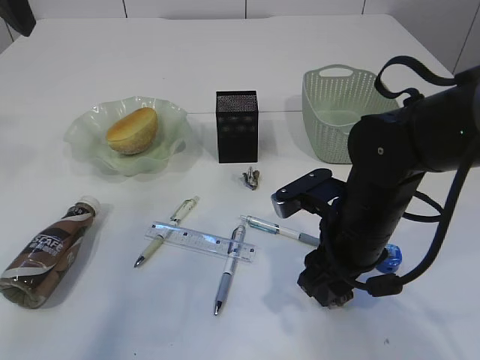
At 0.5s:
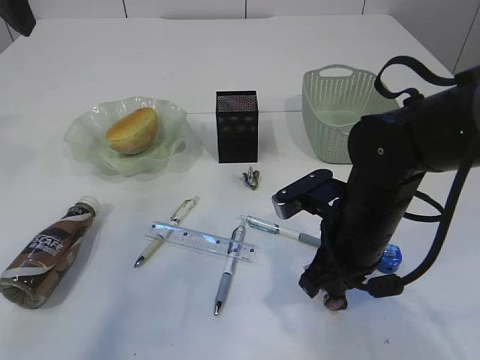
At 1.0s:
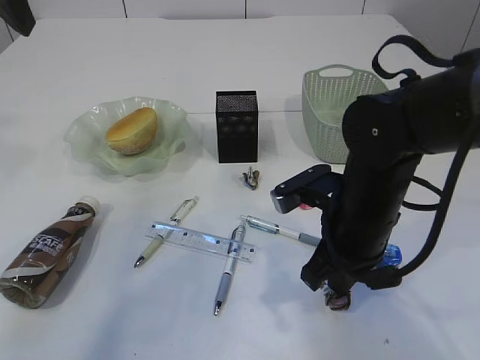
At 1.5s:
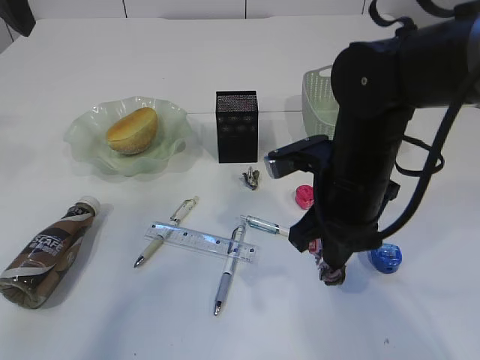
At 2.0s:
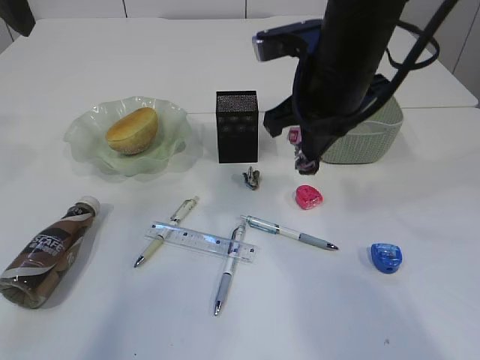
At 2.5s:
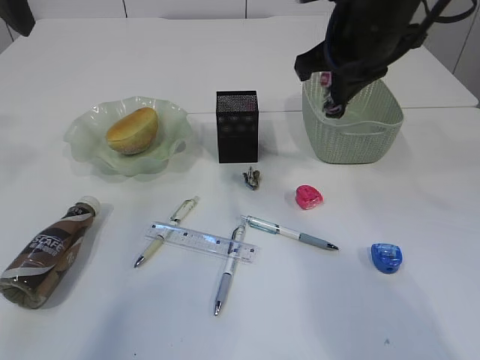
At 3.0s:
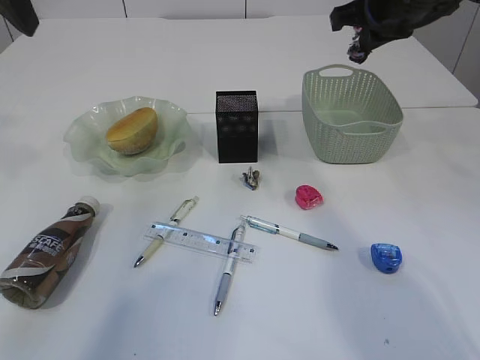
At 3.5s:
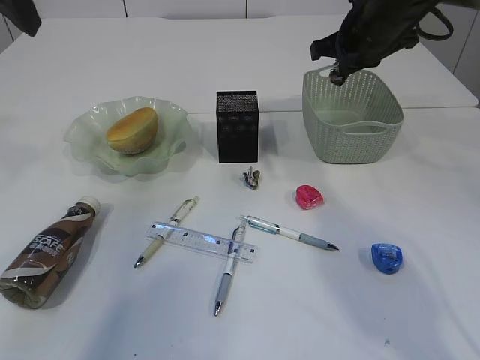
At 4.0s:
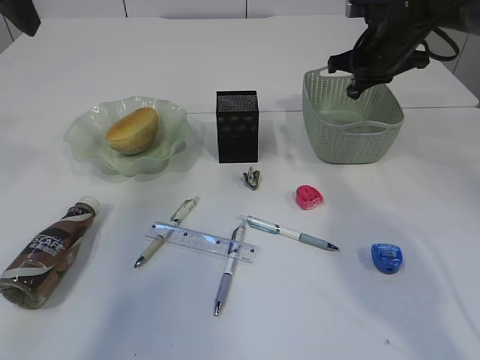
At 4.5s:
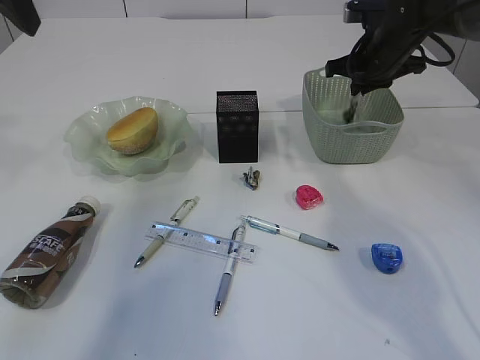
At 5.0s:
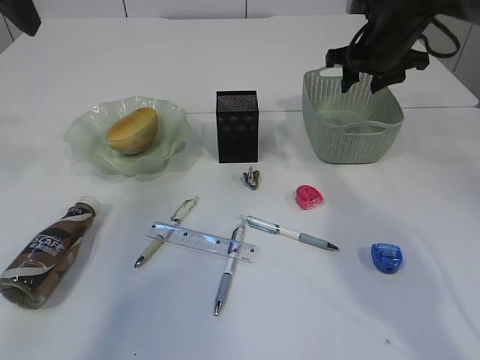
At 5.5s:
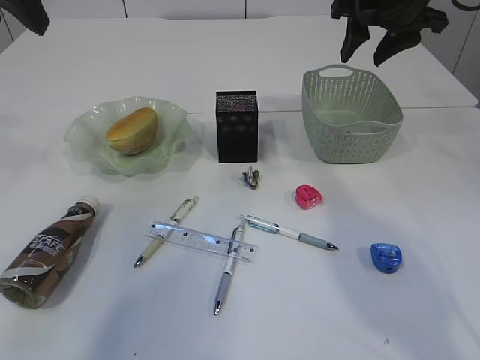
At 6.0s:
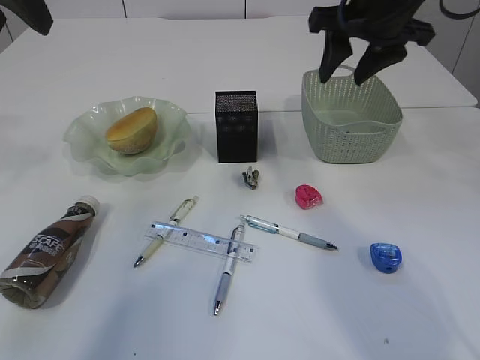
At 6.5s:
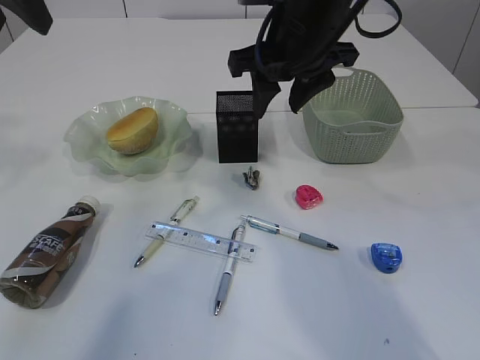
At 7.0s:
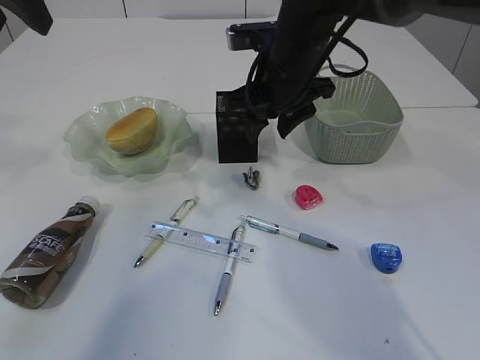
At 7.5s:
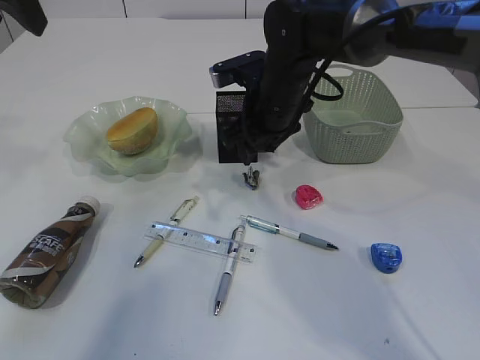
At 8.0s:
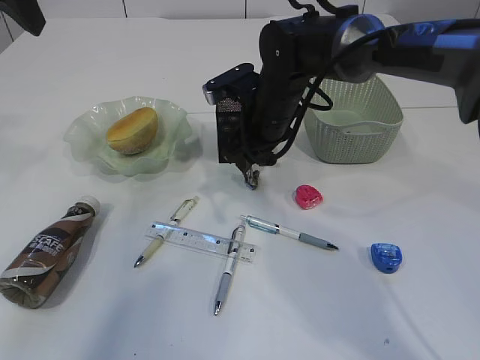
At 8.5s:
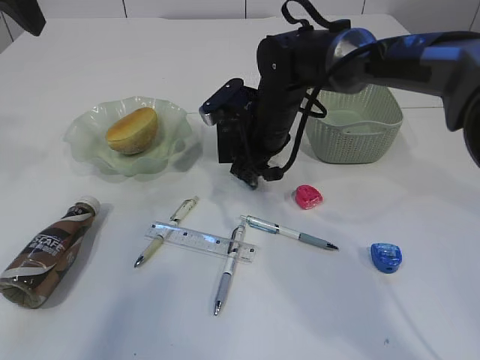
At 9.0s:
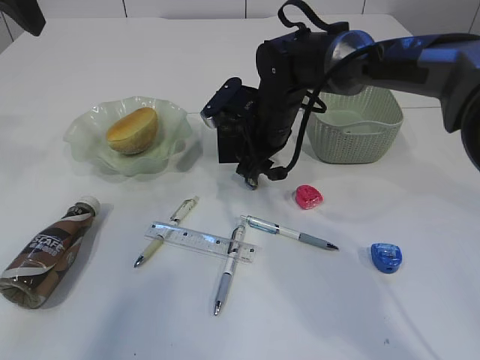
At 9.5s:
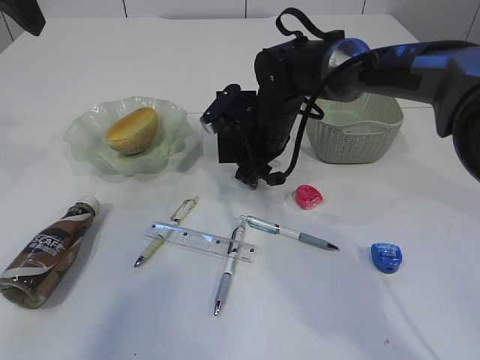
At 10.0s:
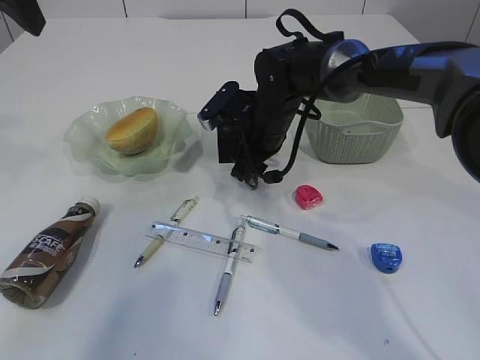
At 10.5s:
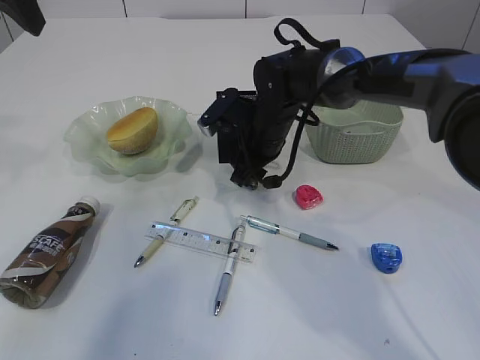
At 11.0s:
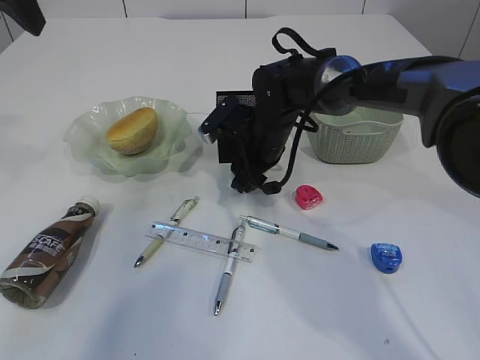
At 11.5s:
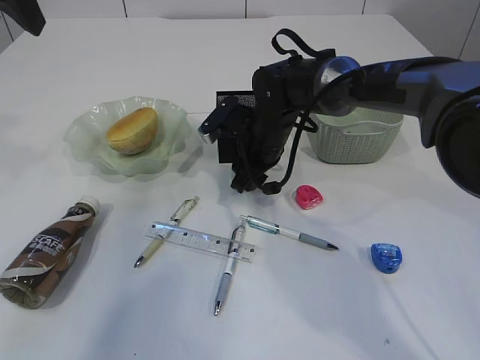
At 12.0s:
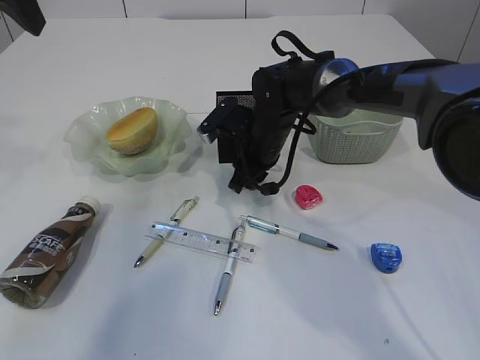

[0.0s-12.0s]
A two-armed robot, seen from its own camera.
Step, 2.0s to 5.5s: Place the waste paper in the basket.
0.0s to 2.0s: The right gripper travels upward and forward by about 15 cm, and closes its fingers.
2.0s to 4.0s: The right gripper travels forward and to the right by about 20 cm.
4.0s to 6.0s: The right gripper goes some 15 cm upward and backward, and opens up.
6.0s to 8.0s: The right gripper shifts some 20 cm downward and to the left.
8.0s to 10.0s: There are only small adjustments of the grippers.
10.0s to 12.0s: The right gripper closes.

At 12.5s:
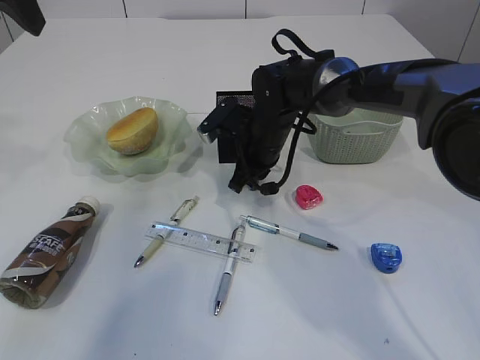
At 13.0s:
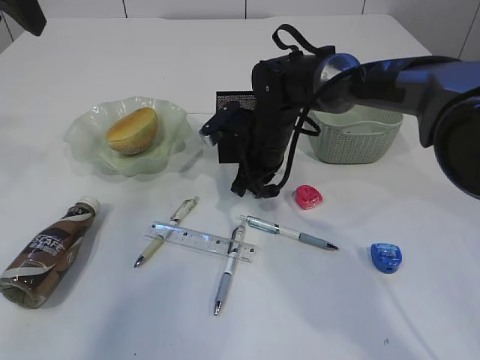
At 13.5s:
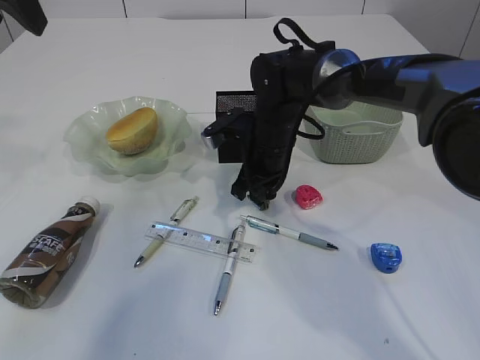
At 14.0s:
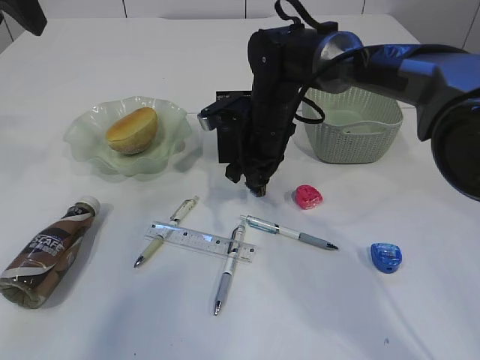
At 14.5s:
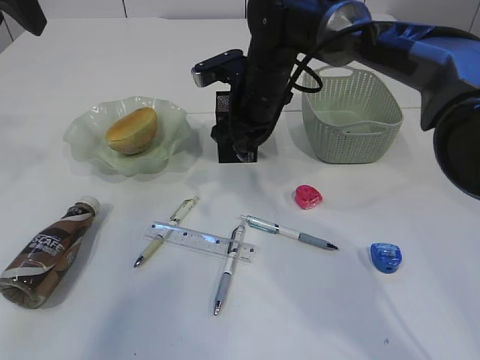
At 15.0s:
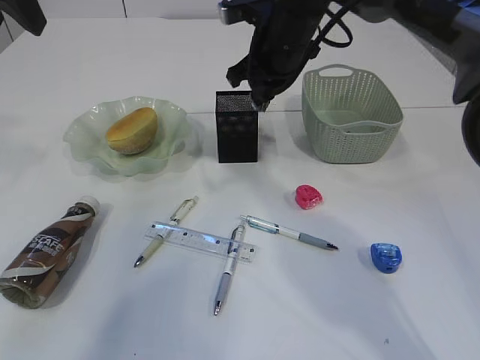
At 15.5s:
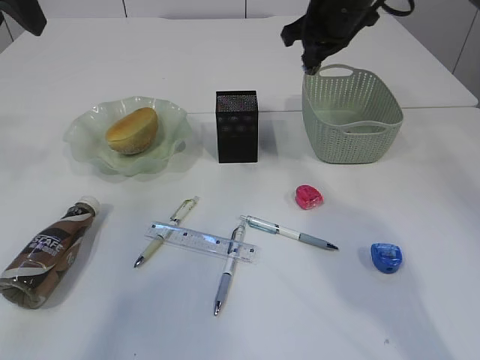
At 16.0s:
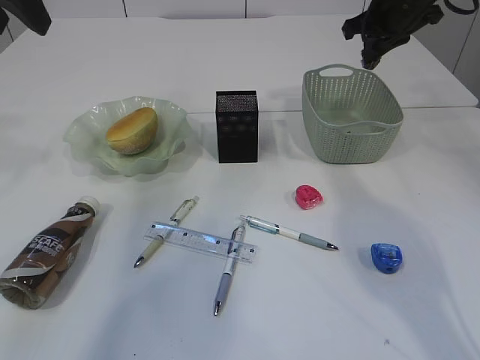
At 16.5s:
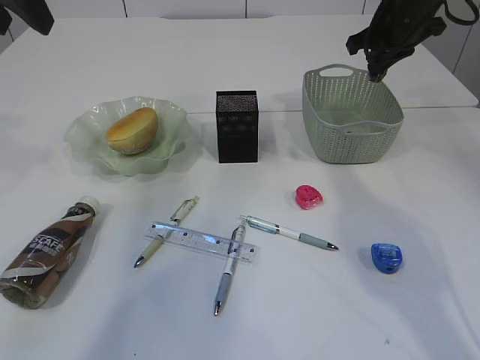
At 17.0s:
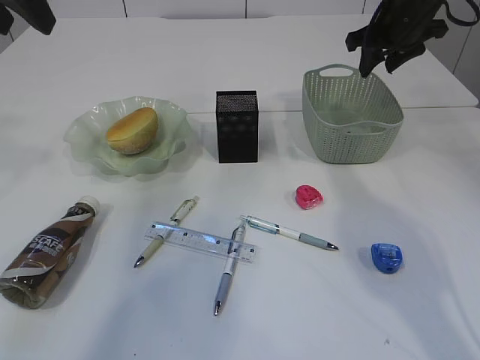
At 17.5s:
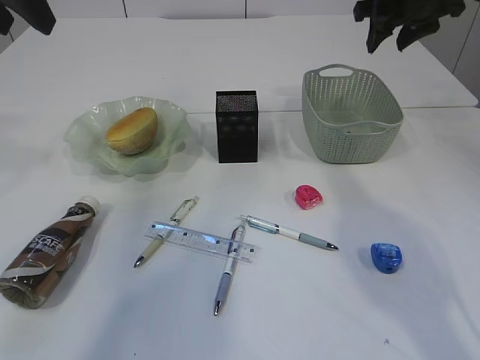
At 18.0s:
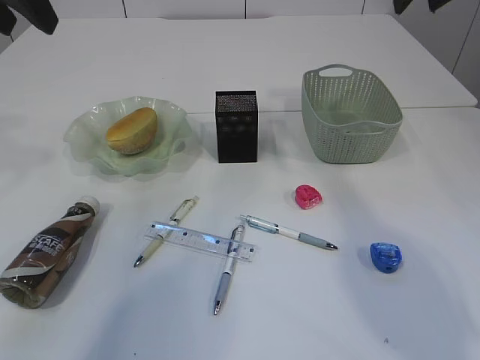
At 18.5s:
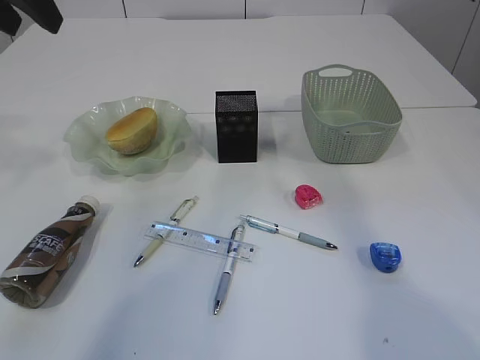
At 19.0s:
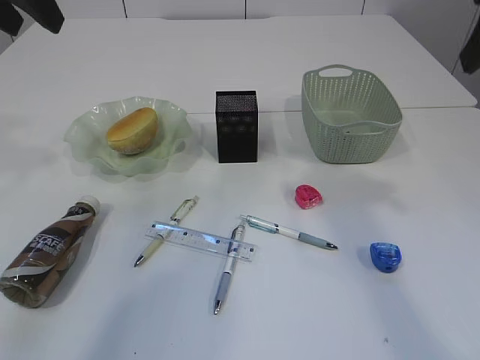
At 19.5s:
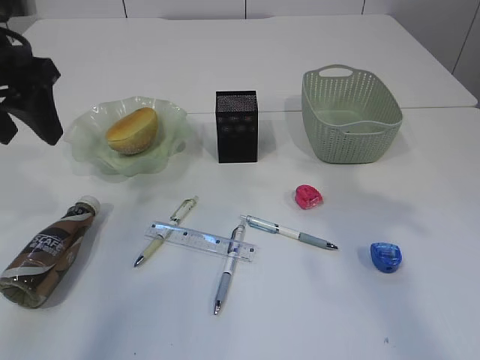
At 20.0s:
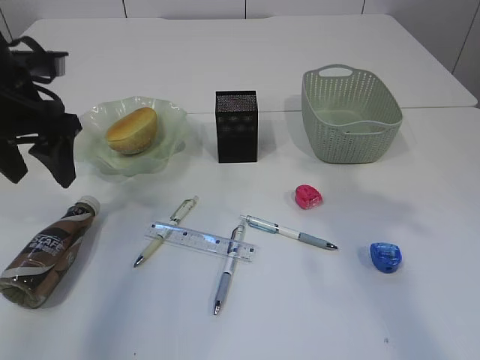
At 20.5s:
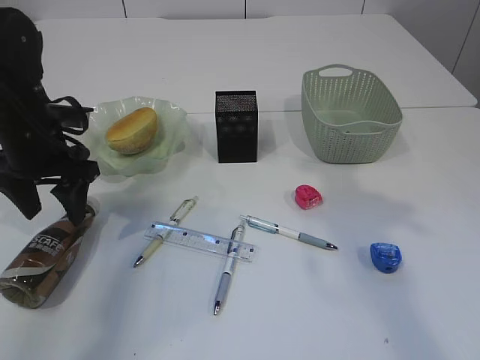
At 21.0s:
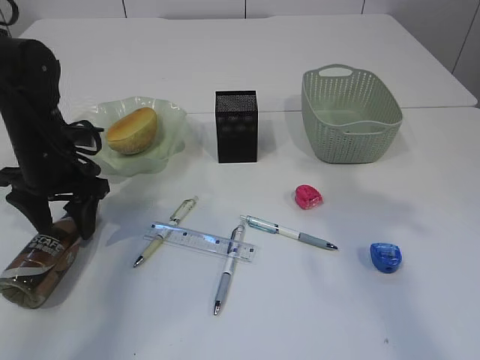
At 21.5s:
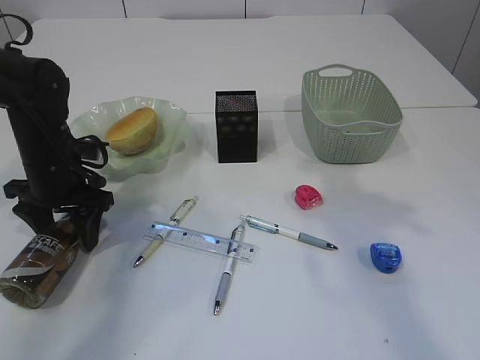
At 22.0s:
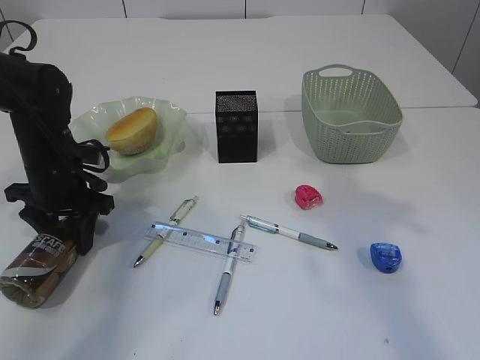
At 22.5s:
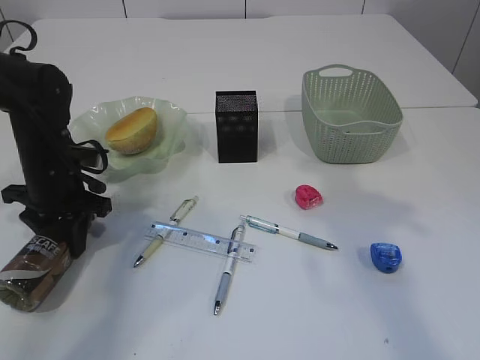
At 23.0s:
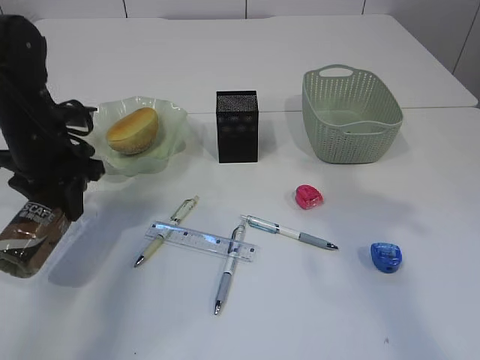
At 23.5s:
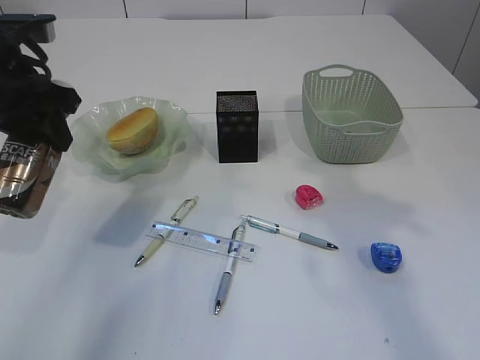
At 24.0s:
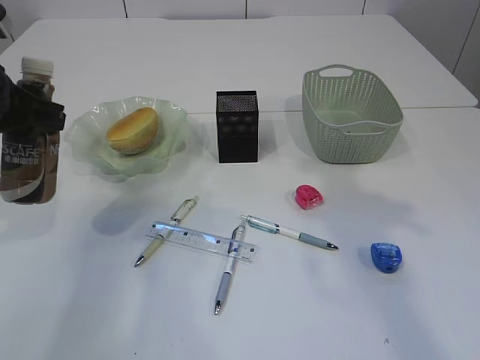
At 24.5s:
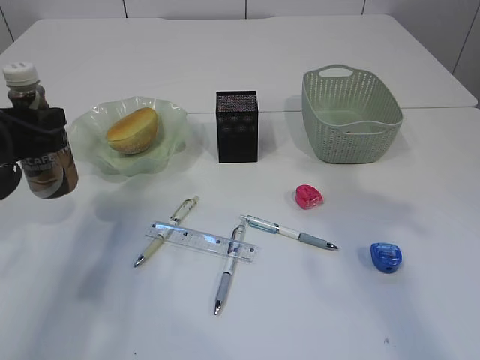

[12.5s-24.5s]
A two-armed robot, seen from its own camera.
Step, 12.5s to 14.5s: Pick up the waste paper.
Step, 15.0s to 16.5s: Place the waste paper in the basket.
Step, 17.0s to 23.0s: Pick up the bottle with the left arm.
12.5s to 14.5s: The right gripper moves upward, about 10 cm.
14.5s to 16.5s: The right gripper is displaced to the right by about 20 cm.
16.5s to 18.5s: The right gripper goes roughly 20 cm backward and upward, and opens its fingers.
18.5s to 20.5s: The left gripper heads downward, covering approximately 20 cm.
20.5s to 22.5s: The left gripper shifts roughly 5 cm downward, and closes its fingers.
22.5s to 24.5s: The left gripper heads backward and upward, covering approximately 15 cm.

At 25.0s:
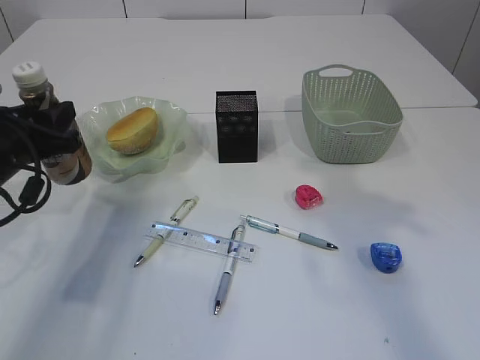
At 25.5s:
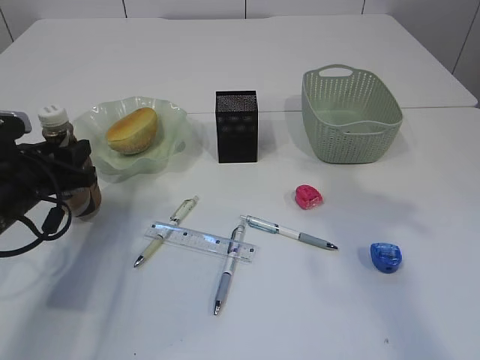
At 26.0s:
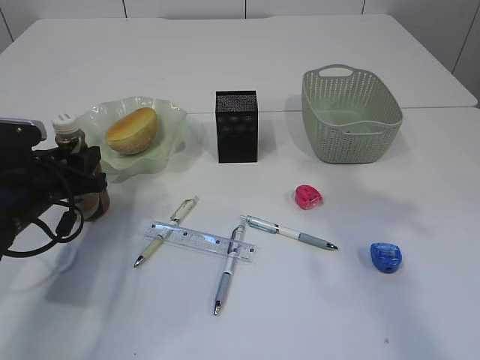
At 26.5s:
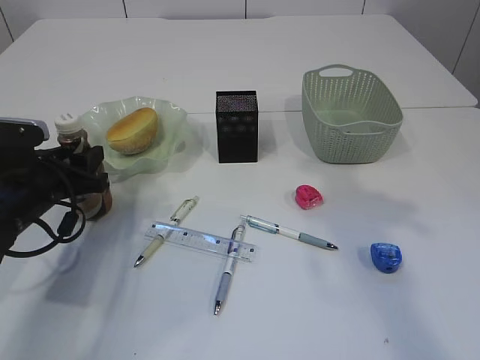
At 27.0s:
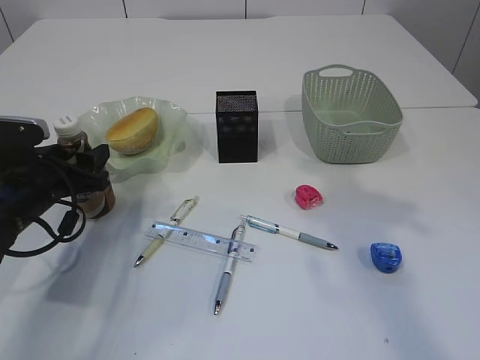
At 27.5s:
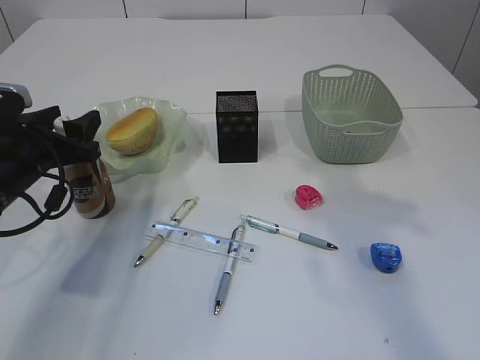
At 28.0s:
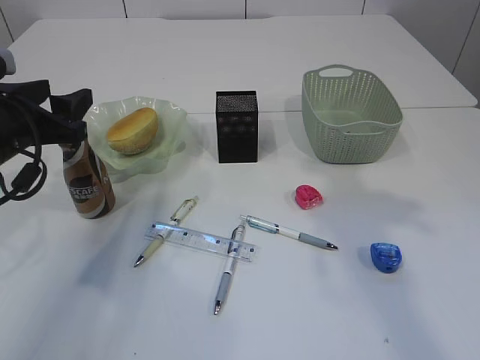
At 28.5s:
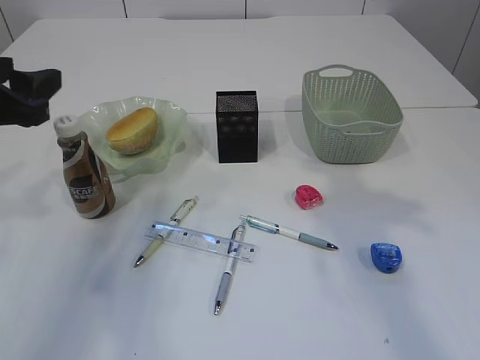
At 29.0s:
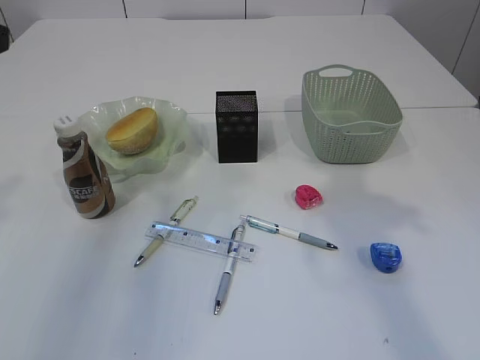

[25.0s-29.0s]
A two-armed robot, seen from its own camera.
Step, 25.0s to 28.0s: Place the bottle.
25.0s to 27.0s: The left gripper is displaced downward by approximately 5 cm, and opens.
27.0s to 29.0s: The left gripper is displaced upward by about 25 cm.
